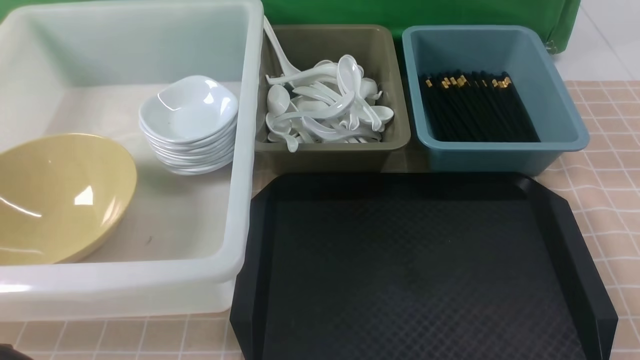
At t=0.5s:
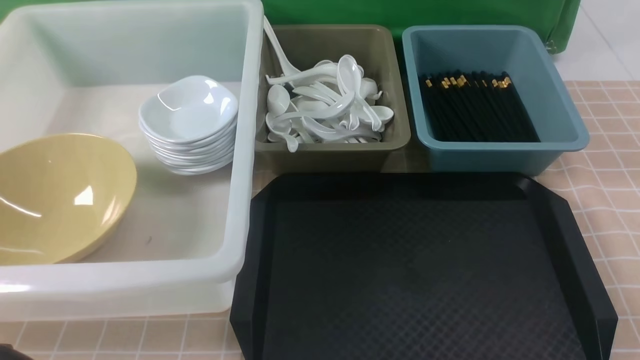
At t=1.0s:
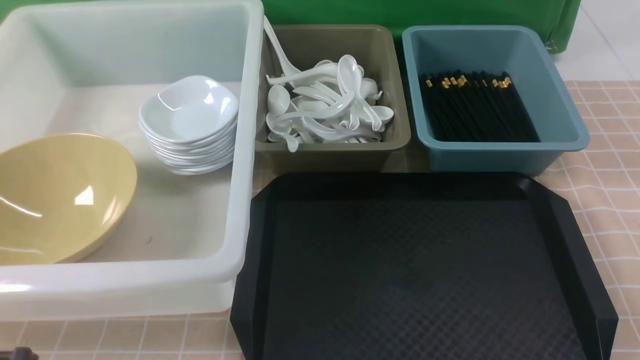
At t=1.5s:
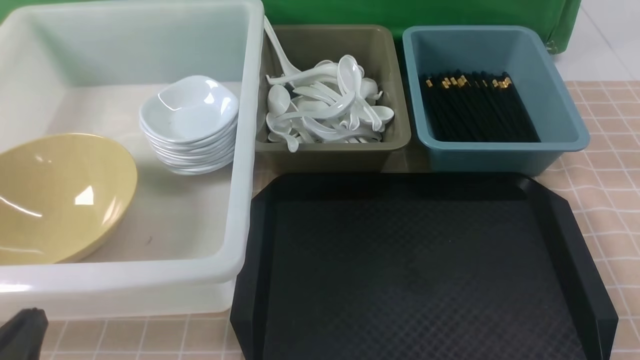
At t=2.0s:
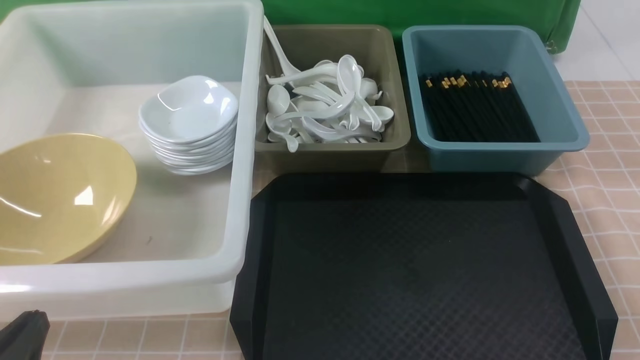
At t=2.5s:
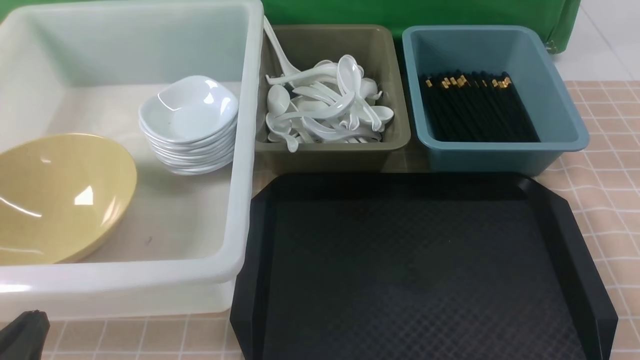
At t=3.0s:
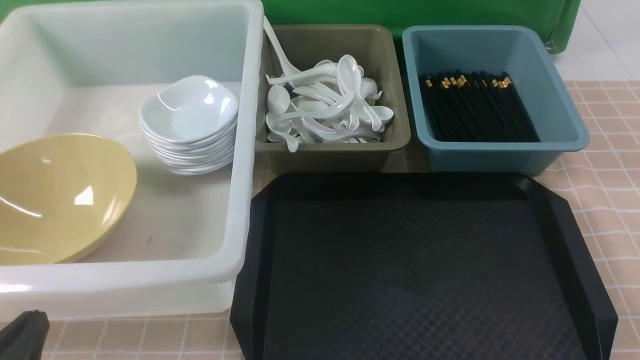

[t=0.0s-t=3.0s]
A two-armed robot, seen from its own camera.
Task of the whole recording: on brown table put chopsticks spoon bowls plates into blue grey white boxes.
t=0.0s to t=1.5s: The left gripper is displaced downward by roughly 10 cm.
t=1.5s to t=3.0s: Both grippers stay put.

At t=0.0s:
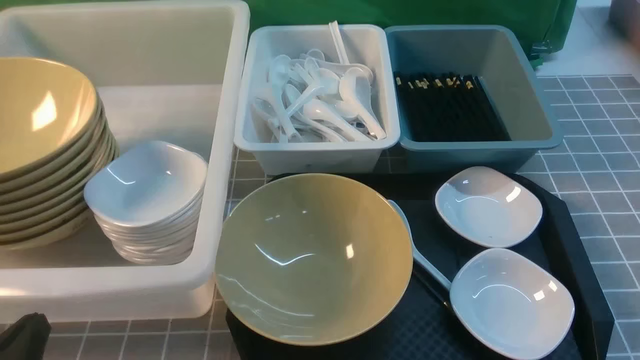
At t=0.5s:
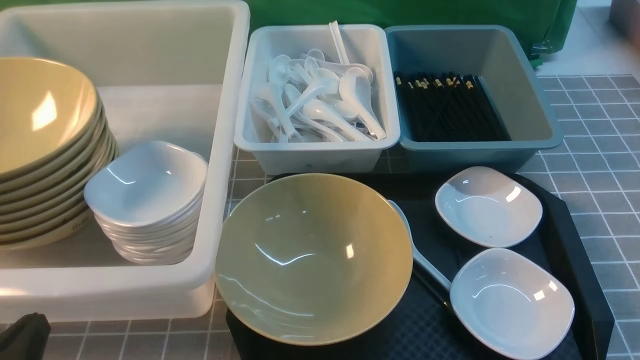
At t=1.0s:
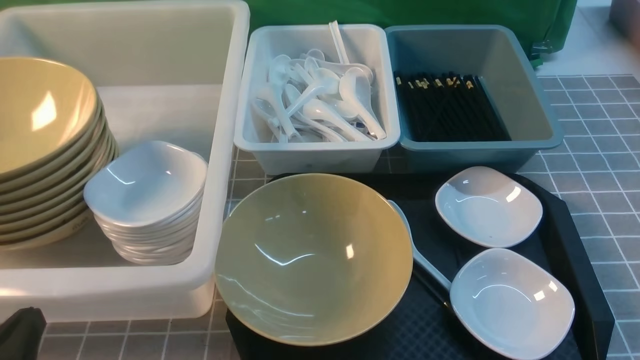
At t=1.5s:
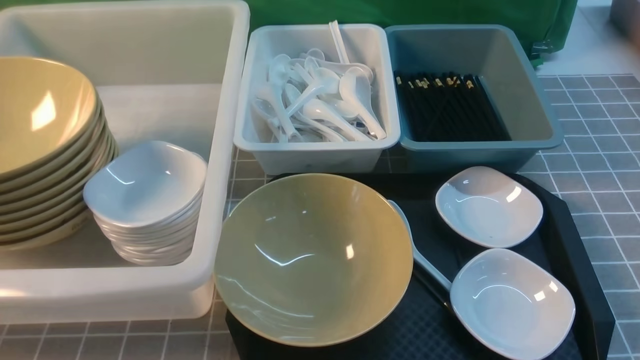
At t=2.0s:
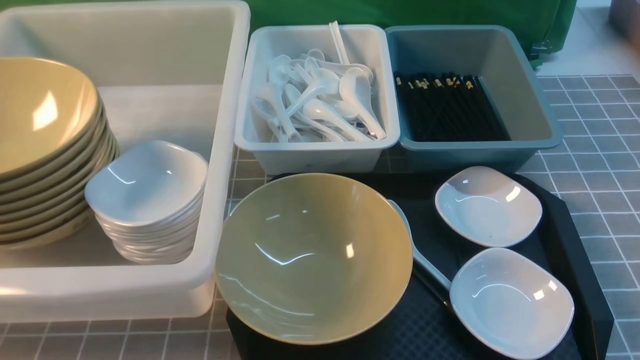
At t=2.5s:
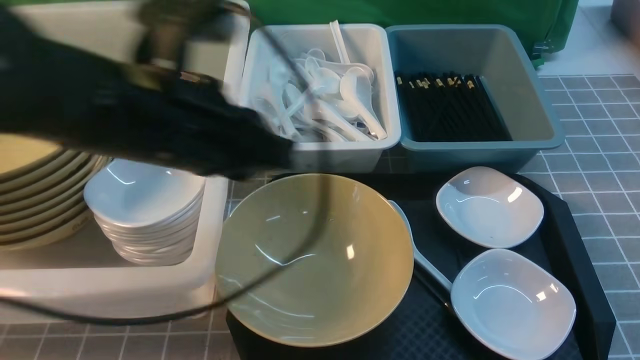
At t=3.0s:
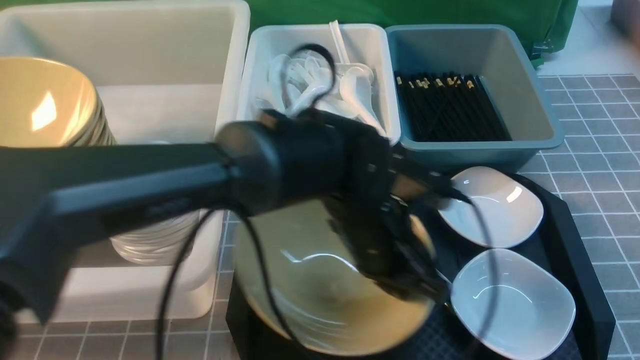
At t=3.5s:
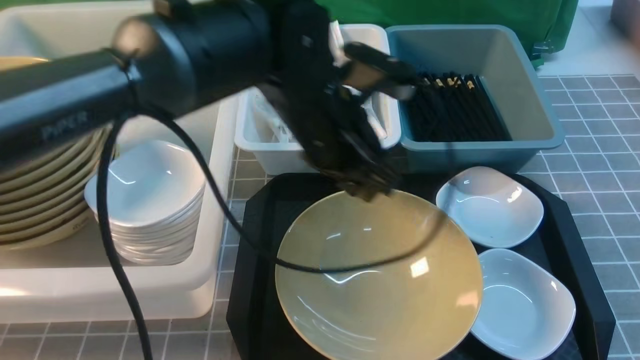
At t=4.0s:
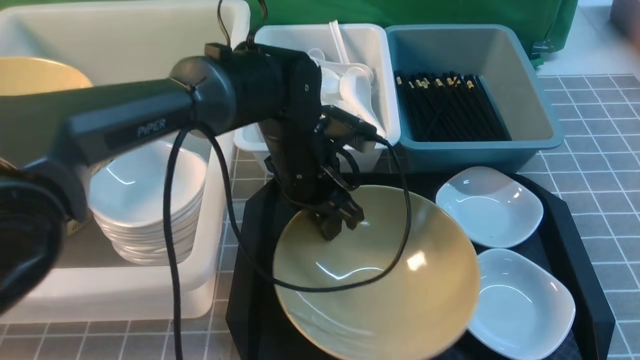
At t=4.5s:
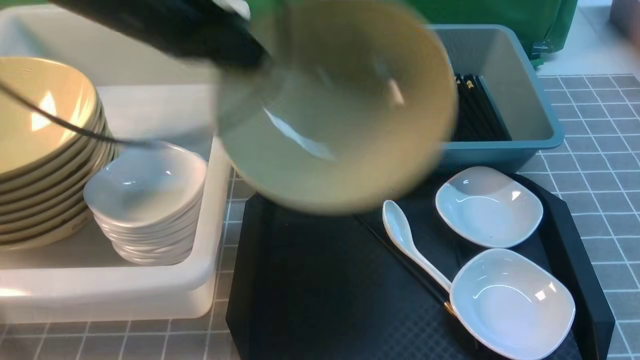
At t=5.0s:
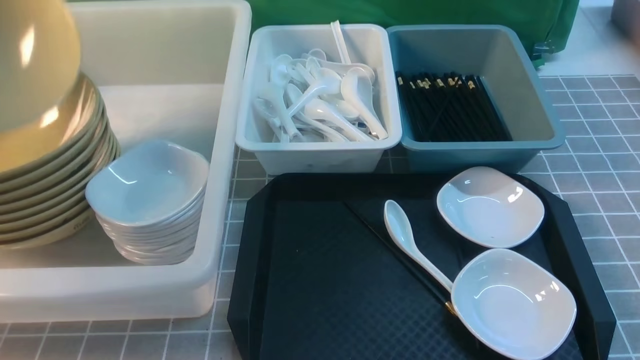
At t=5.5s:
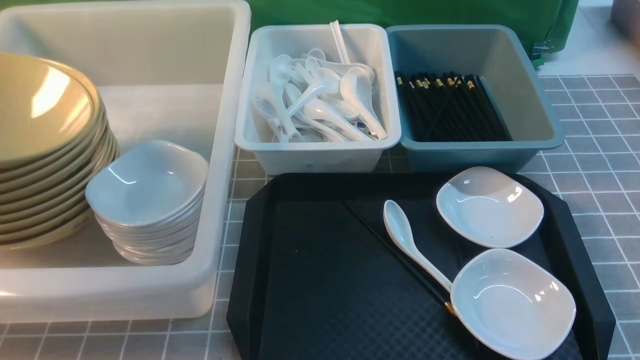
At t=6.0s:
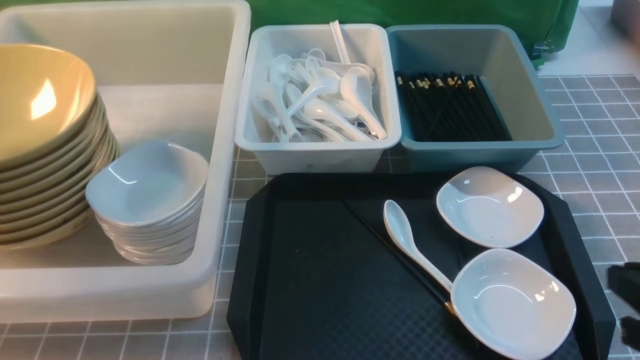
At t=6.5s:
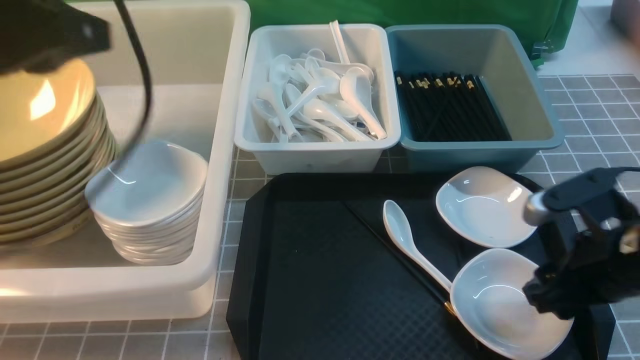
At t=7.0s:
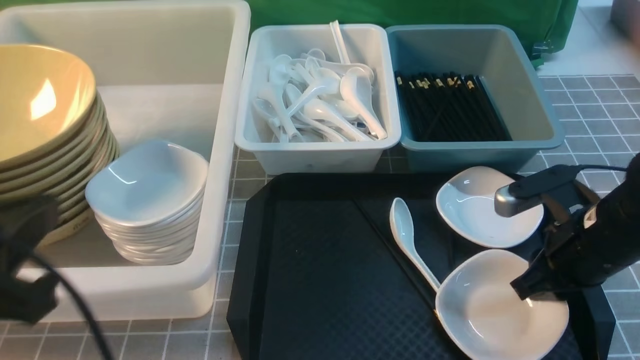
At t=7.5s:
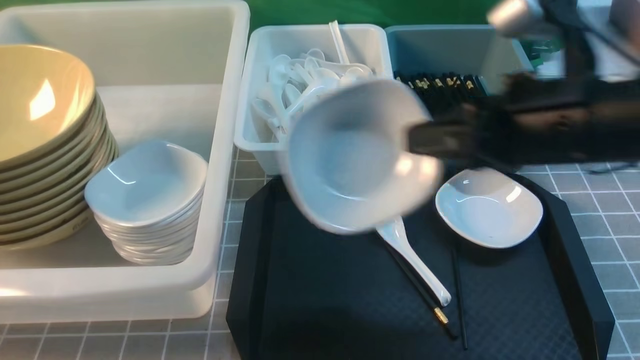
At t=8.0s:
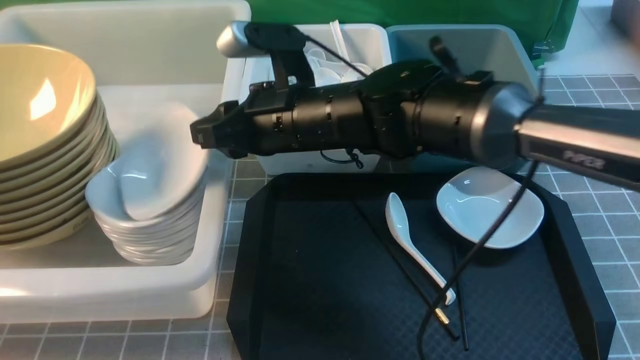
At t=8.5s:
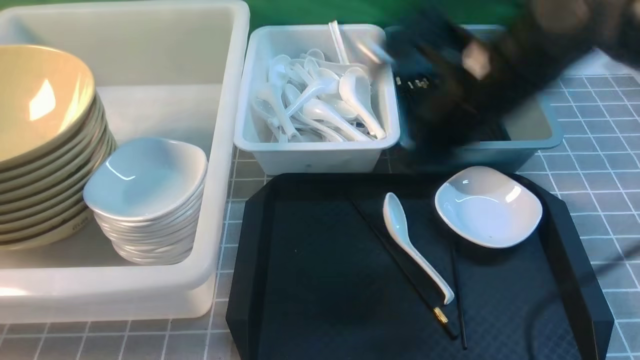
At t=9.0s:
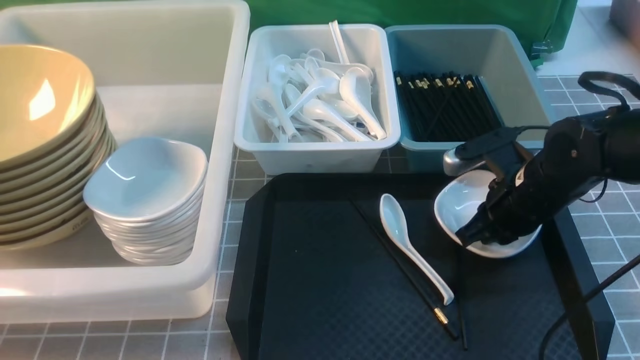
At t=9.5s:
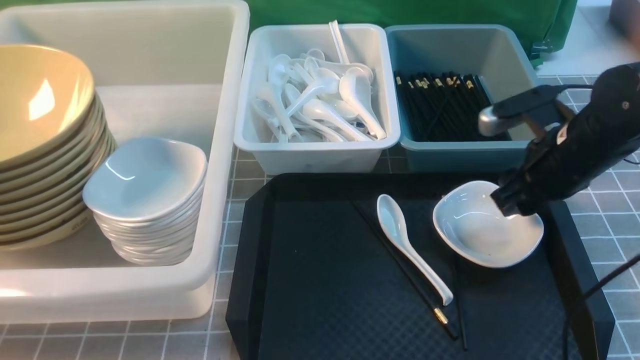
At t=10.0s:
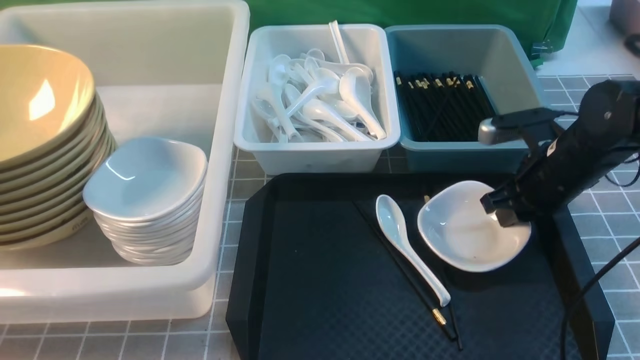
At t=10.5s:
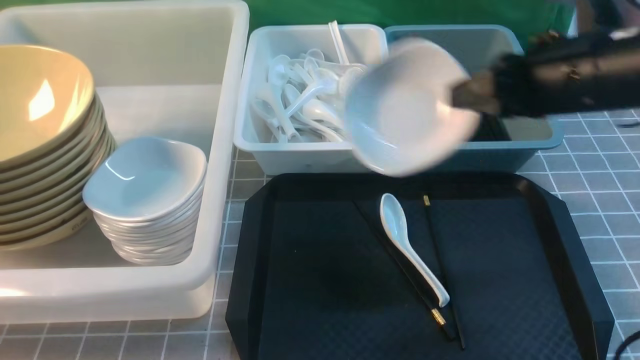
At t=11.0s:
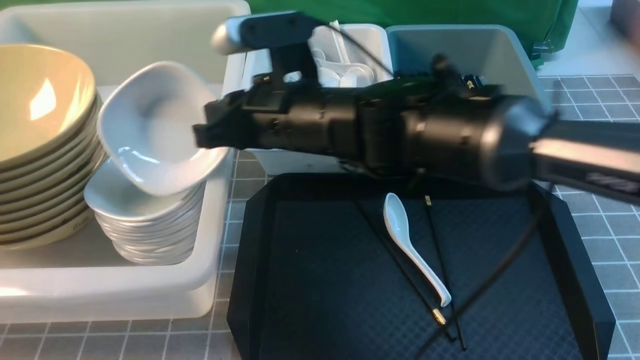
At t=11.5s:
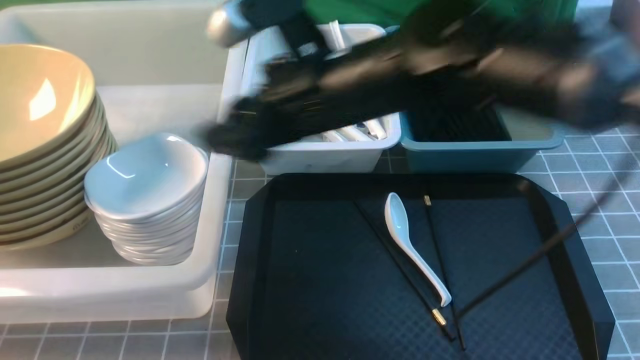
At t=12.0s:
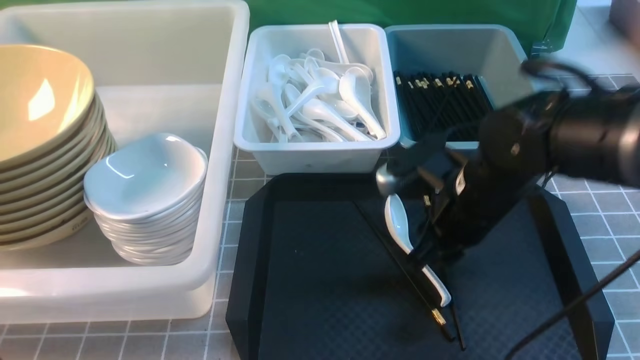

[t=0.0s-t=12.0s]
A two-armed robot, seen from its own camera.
Task of the whole recording: on grey table put chopsticks spoon bowls plates into blue grey white boxes.
Step, t=0.0s to t=4.0s: use the left arm to grab the yellow noodle bowl on the left.
Step, t=4.5s to t=6.0s: use the left arm to put the noodle bowl into the large storage box on the left.
Step, t=6.5s to t=7.0s: use the right arm to grab the plate.
Step, t=8.5s to t=10.0s: use the right arm to grab the plate.
Step, t=10.5s to t=11.0s: use the right arm to put the plate into the large storage box on the left.
t=2.0s to t=4.0s: The right gripper heads forward, covering some 5 cm. Meanwhile the left gripper heads forward, to the right and downward, covering some 40 cm, and opens up.
t=4.0s to t=6.0s: The left gripper travels to the left by some 35 cm, and closes its fingers.
t=6.0s to t=8.0s: The left gripper is displaced backward and to the right by some 30 cm, and closes. The right gripper shifts some 35 cm to the left and forward, and opens and closes again.
t=8.0s to t=10.0s: The right gripper goes about 25 cm to the right and downward.
t=10.0s to t=12.0s: The right gripper moves to the left, roughly 10 cm, and closes and opens again.

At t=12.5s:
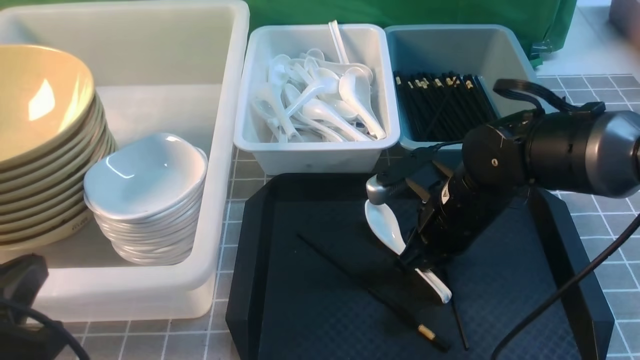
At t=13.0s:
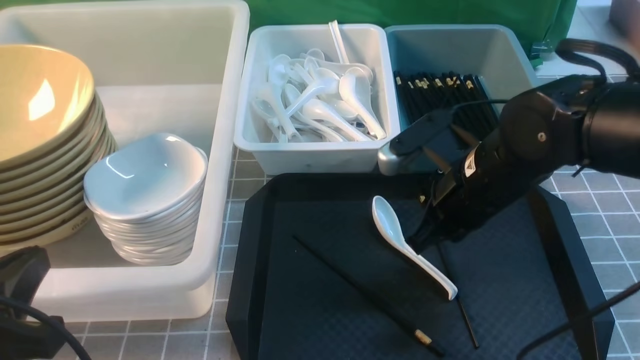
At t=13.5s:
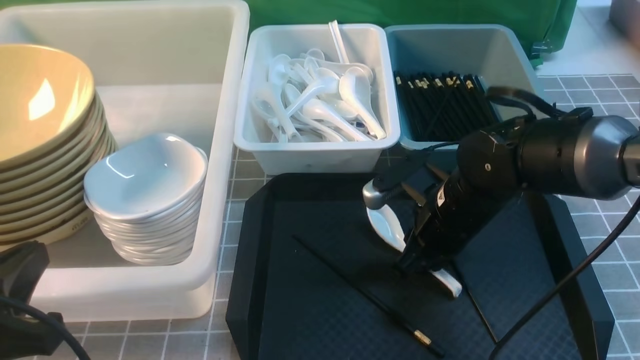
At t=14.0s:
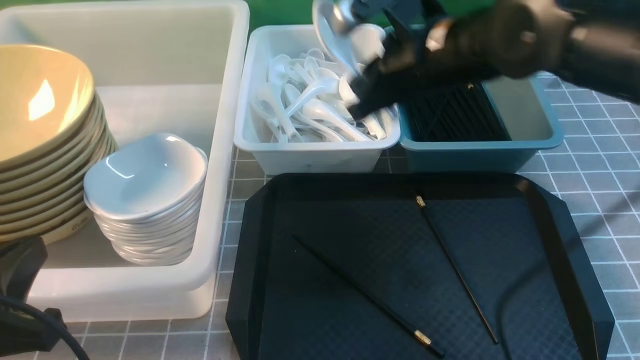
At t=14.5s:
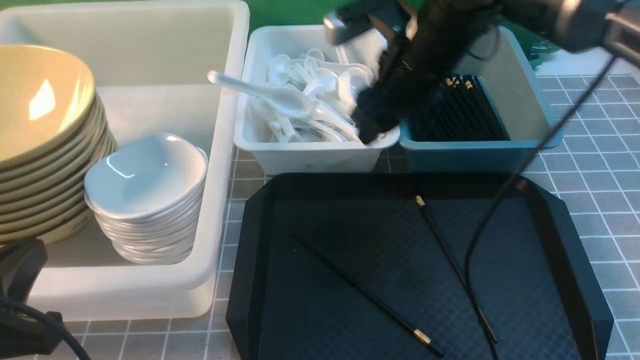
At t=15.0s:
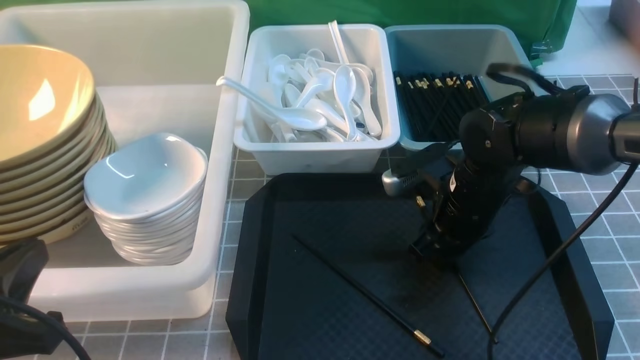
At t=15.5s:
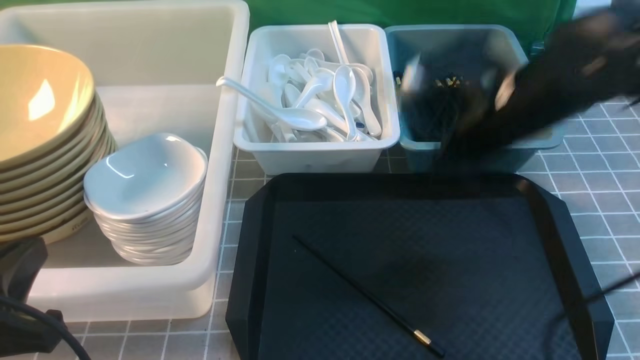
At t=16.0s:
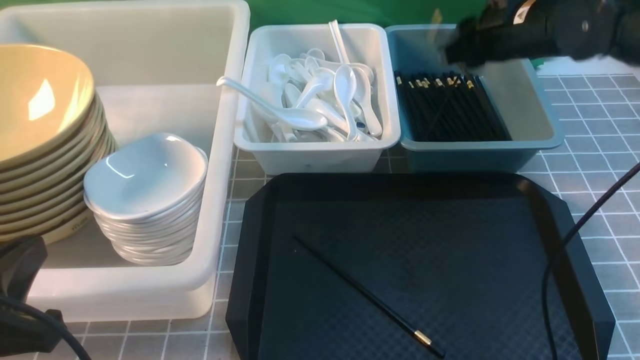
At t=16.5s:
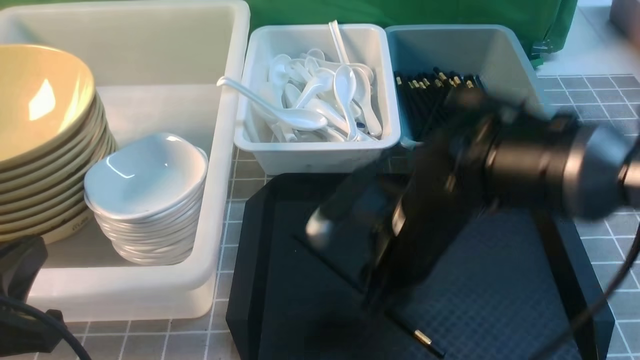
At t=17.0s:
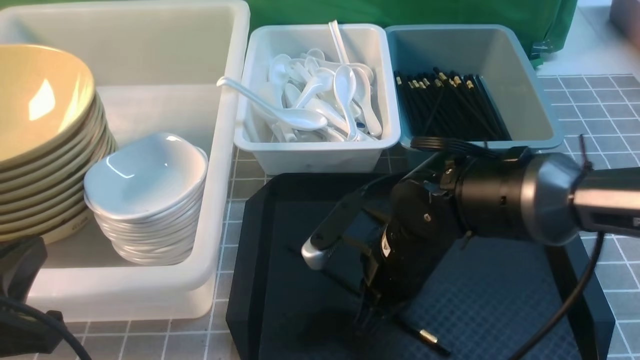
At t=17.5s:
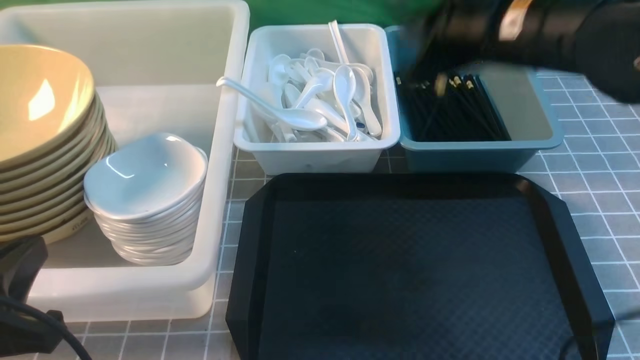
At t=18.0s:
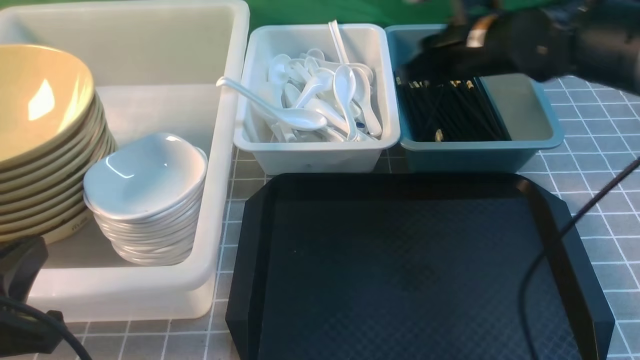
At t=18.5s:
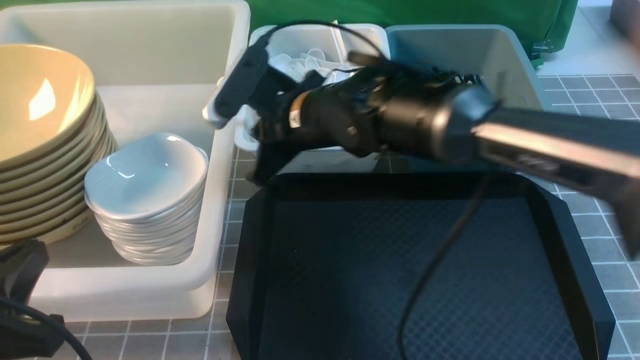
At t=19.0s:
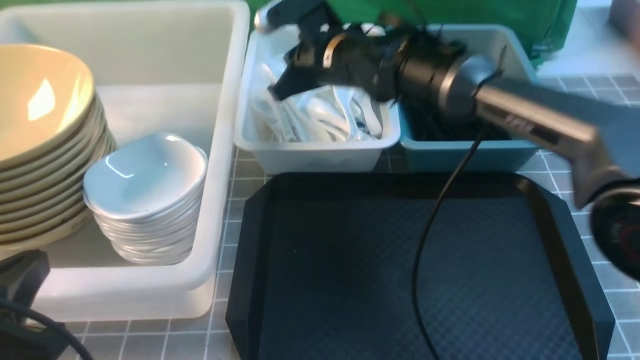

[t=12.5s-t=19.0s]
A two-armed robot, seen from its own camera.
Task of the whole recording: on grey table put chopsticks spoon bowls plates into blue grey white boxes.
Step, t=12.5s to t=14.0s: use the right arm to grab the soup spoon in the middle.
Step, t=14.5s to t=15.0s: use the right arm to grab a chopstick.
Step, t=15.5s to t=16.0s: use the right arm to put a chopstick into the small storage box on the right.
Step, t=16.5s to t=17.0s: use the right arm to grab a chopstick.
Step, t=17.5s to t=18.0s: use the right arm to put a chopstick into the small storage box on the right.
t=12.5s to t=14.5s: The right gripper goes approximately 15 cm upward and forward, and opens its fingers.
t=14.5s to t=17.0s: The right gripper goes forward and backward, some 15 cm each way, reversing 2 times, and closes up.
t=17.0s to t=19.0s: The right gripper is displaced forward and upward by roughly 20 cm.
